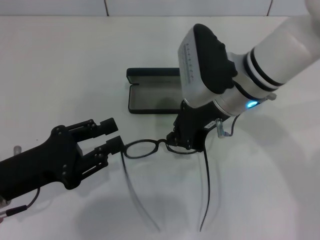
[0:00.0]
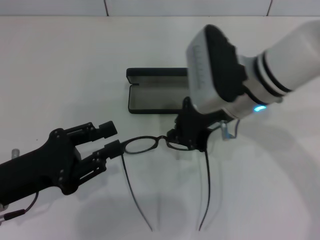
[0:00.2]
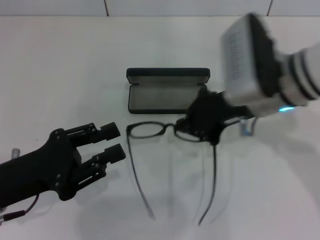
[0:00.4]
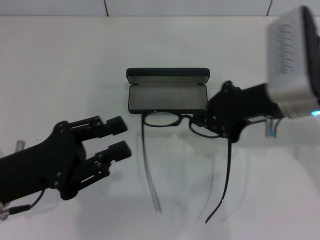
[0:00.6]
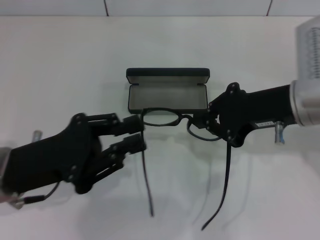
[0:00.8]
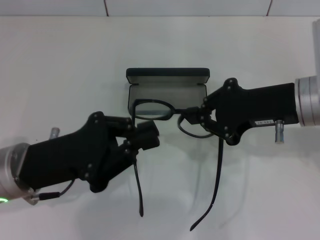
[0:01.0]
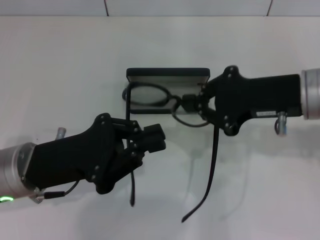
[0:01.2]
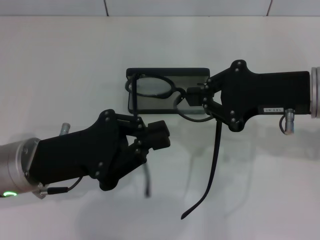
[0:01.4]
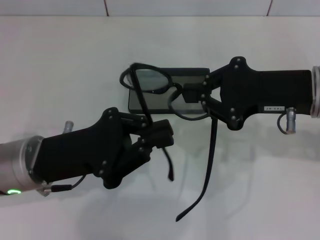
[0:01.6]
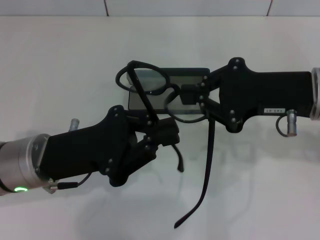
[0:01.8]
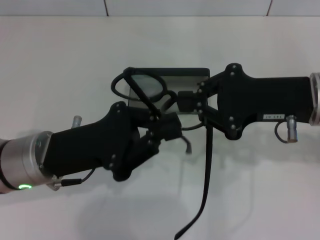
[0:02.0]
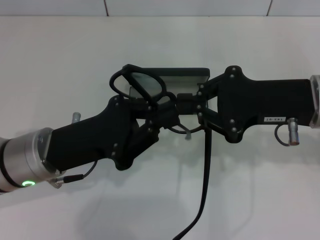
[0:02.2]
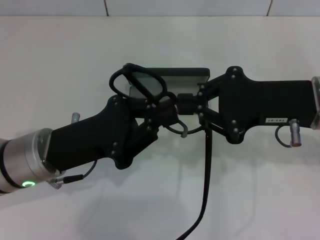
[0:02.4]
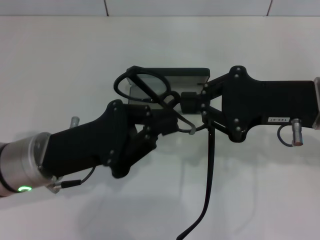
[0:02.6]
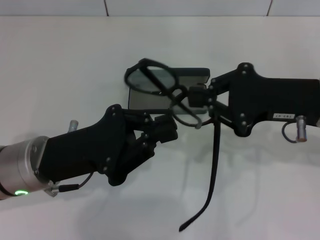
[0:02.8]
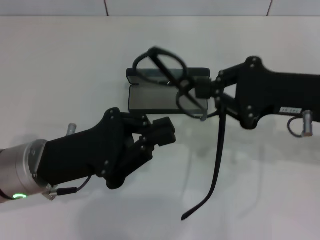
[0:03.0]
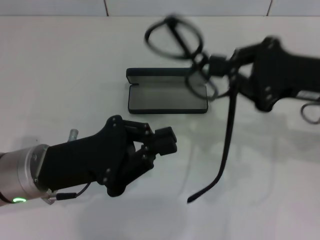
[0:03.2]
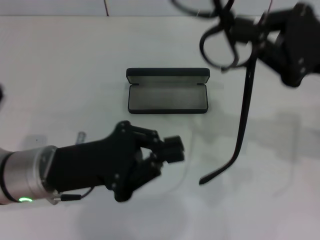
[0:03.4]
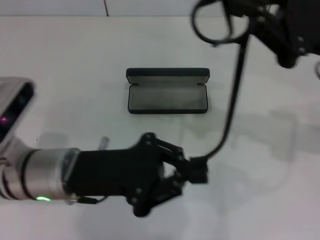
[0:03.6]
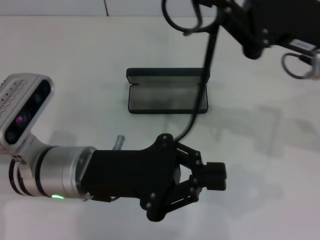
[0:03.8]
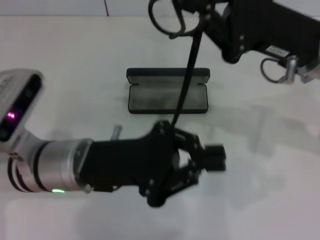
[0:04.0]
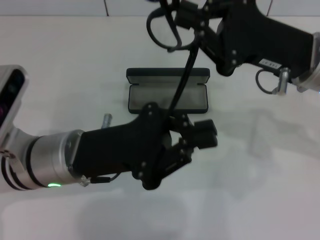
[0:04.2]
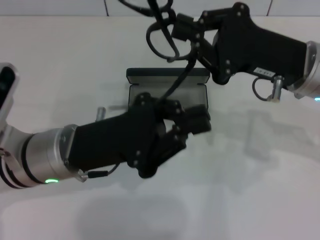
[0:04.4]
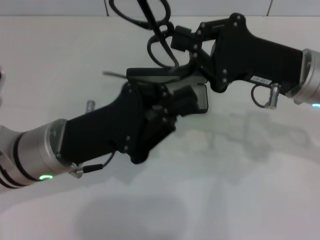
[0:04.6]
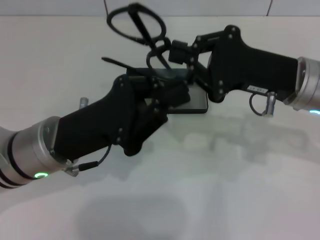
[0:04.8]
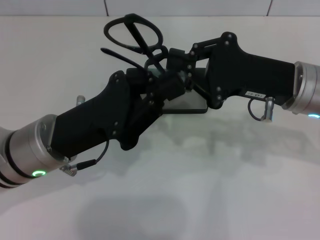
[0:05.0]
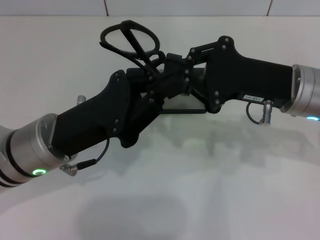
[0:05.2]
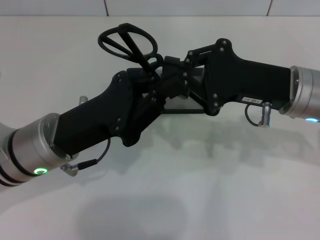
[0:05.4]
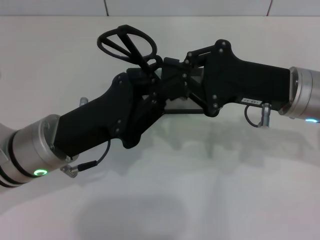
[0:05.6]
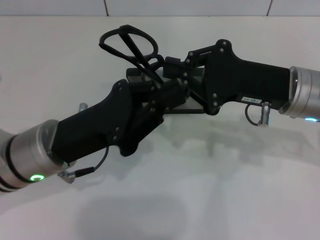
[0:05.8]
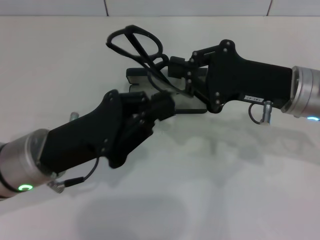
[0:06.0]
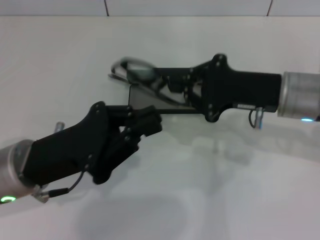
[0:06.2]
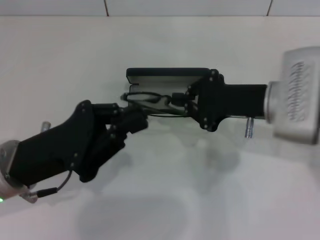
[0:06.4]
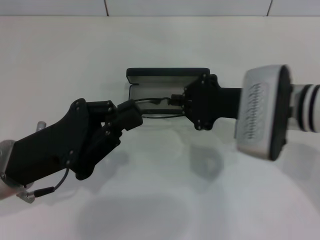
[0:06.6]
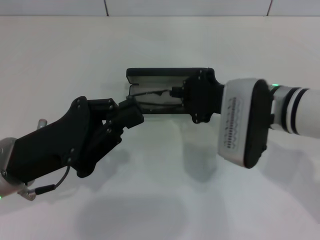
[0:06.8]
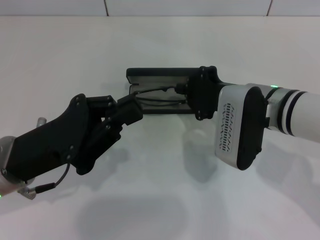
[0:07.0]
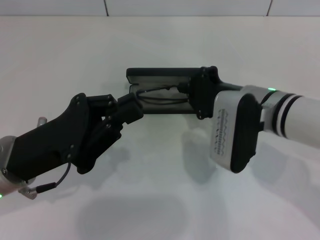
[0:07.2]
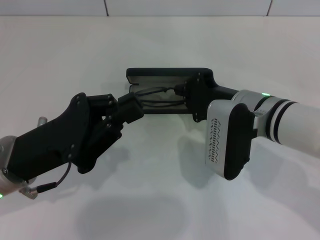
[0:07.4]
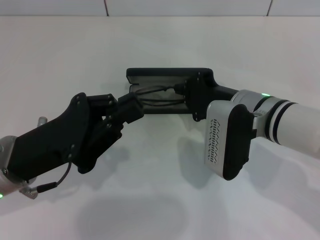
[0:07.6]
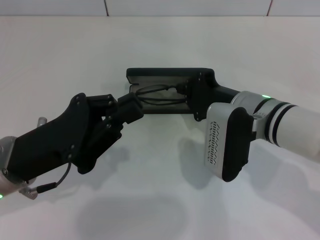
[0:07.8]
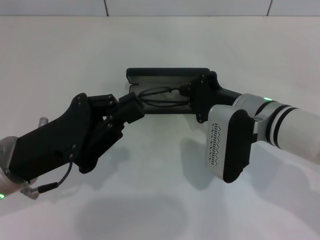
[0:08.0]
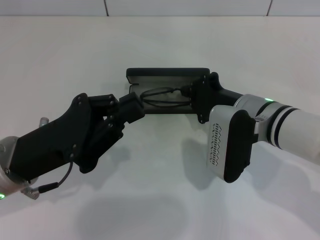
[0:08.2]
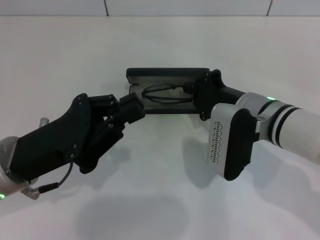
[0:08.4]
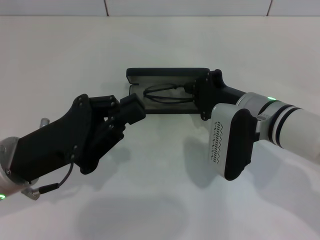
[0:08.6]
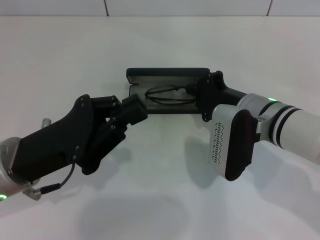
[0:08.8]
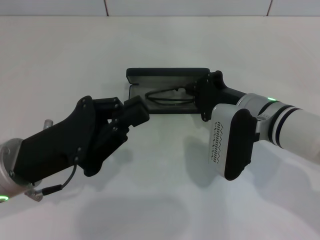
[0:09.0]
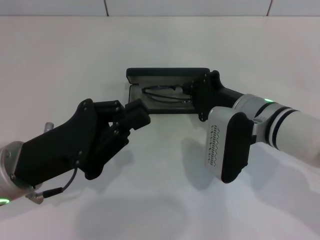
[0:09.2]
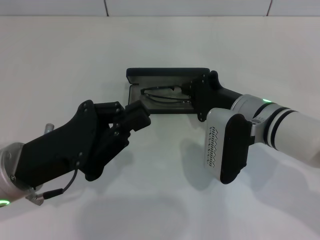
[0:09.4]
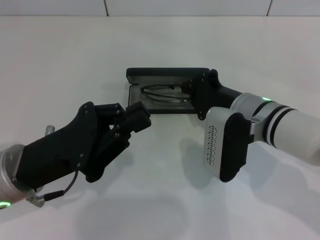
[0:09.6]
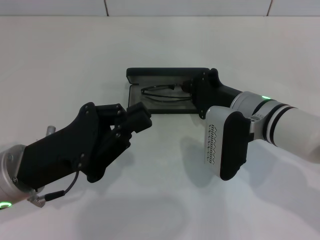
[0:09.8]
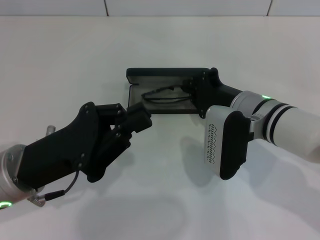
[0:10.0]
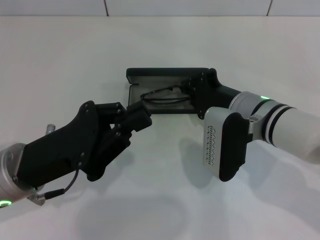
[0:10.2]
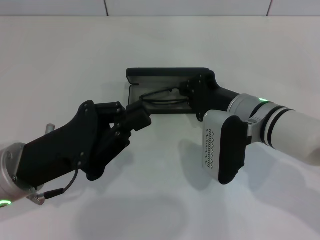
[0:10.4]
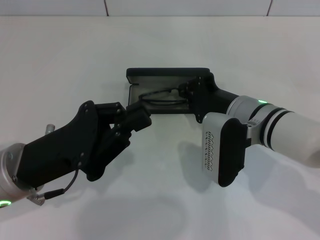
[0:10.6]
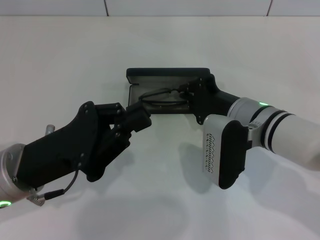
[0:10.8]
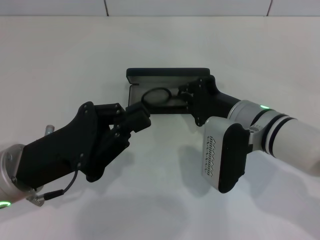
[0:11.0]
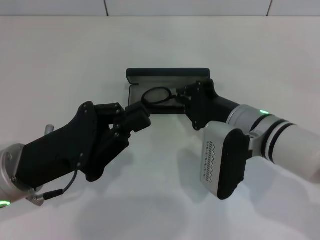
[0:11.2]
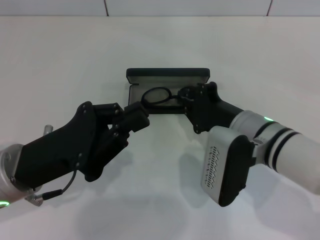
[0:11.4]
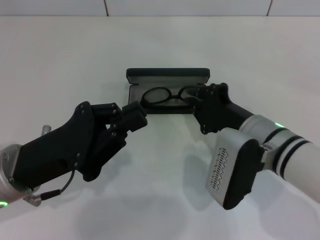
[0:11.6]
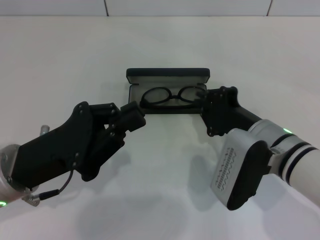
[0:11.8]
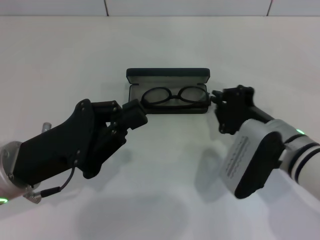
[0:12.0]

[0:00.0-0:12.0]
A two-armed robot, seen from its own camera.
Step, 0:00.0 to 0:05.6: Fold the frame with your left hand.
Step, 0:05.8 to 0:11.0: Put the glasses into the case with your right hand.
0:00.0 to 0:01.6: The left gripper heads to the right, covering roughly 5 cm, and closes. Meanwhile the right gripper shifts some 15 cm to the right and backward.
0:01.6 to 0:03.0: There are only small adjustments of the grippers.
0:06.0 to 0:07.6: The right gripper travels to the left by approximately 5 cm.
0:07.6 to 0:09.0: There are only small adjustments of the grippers.
0:09.0 to 0:10.4: Both grippers stay put.
0:10.4 to 0:12.0: The right gripper moves some 5 cm.

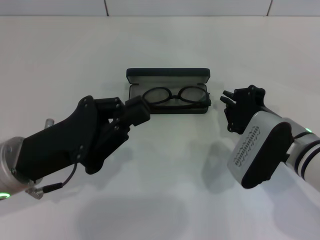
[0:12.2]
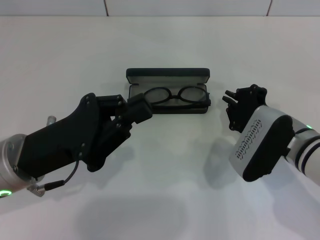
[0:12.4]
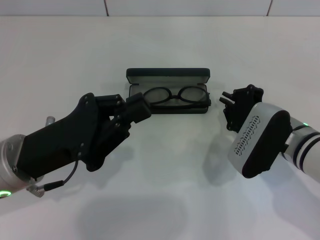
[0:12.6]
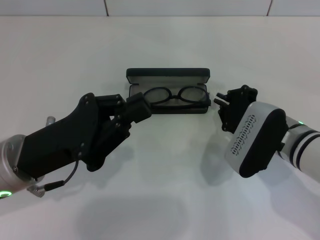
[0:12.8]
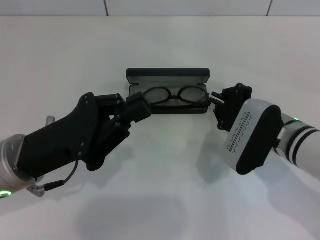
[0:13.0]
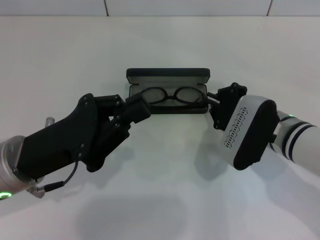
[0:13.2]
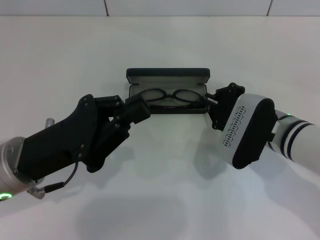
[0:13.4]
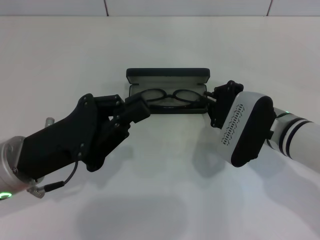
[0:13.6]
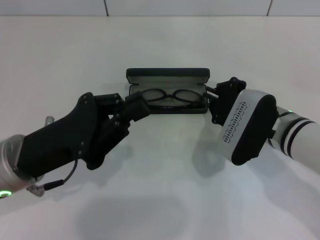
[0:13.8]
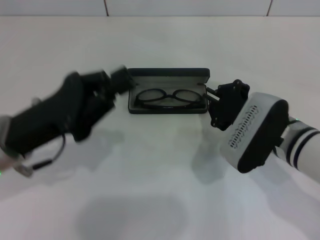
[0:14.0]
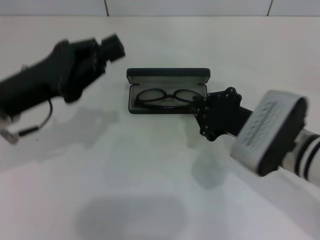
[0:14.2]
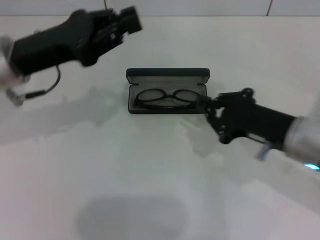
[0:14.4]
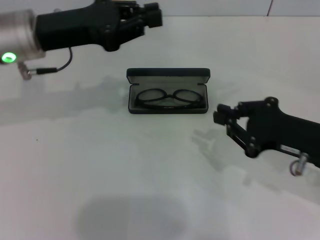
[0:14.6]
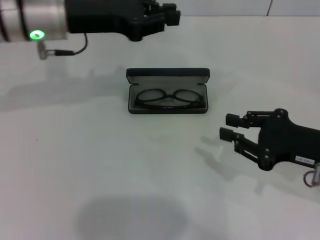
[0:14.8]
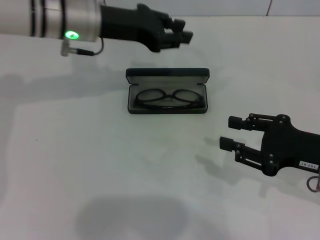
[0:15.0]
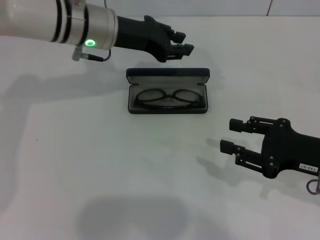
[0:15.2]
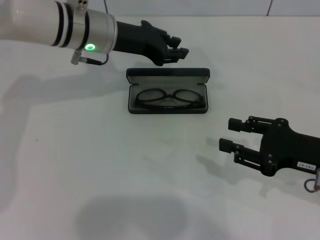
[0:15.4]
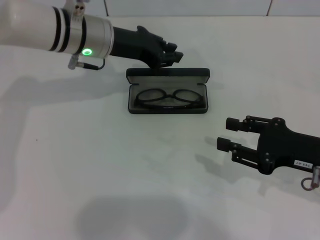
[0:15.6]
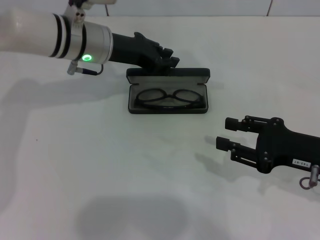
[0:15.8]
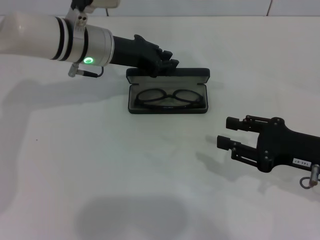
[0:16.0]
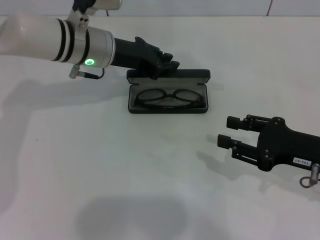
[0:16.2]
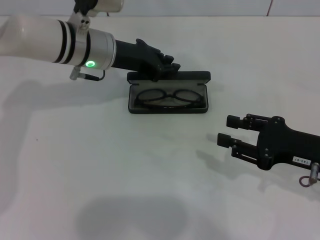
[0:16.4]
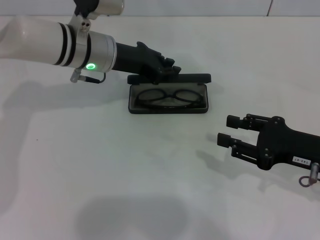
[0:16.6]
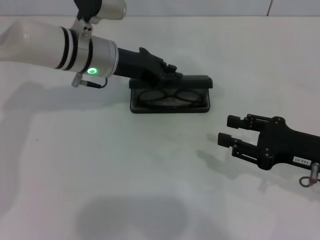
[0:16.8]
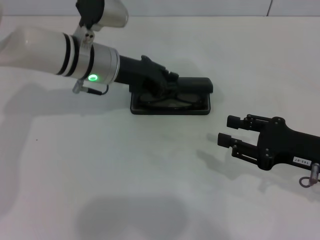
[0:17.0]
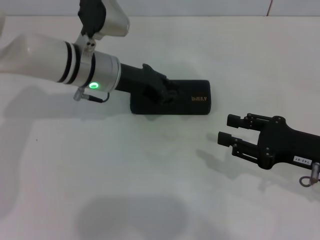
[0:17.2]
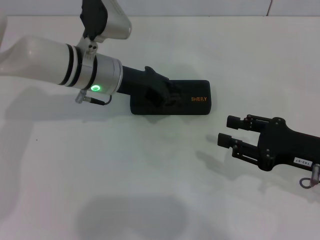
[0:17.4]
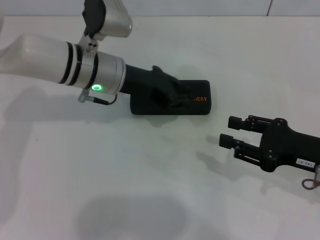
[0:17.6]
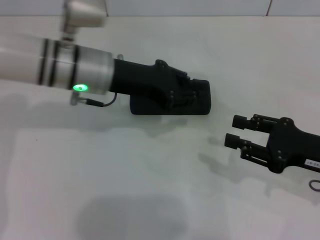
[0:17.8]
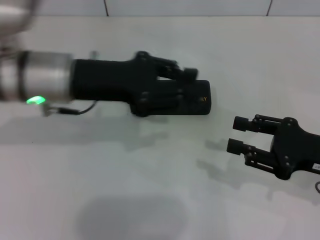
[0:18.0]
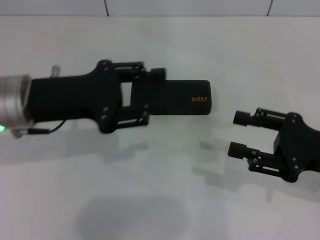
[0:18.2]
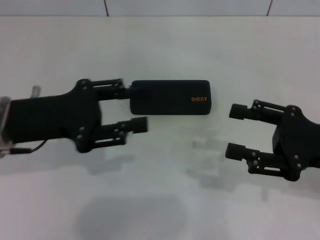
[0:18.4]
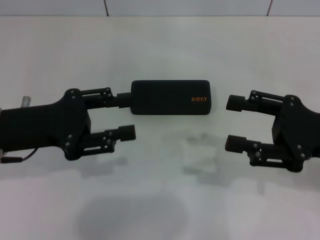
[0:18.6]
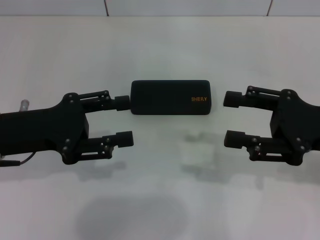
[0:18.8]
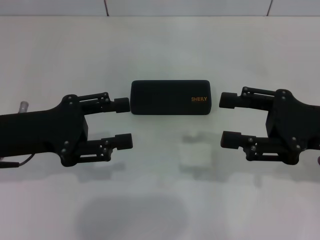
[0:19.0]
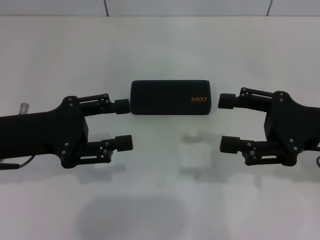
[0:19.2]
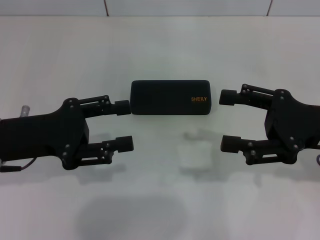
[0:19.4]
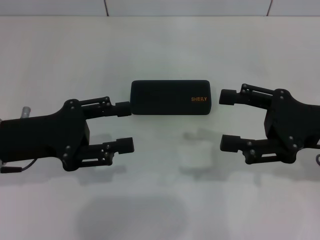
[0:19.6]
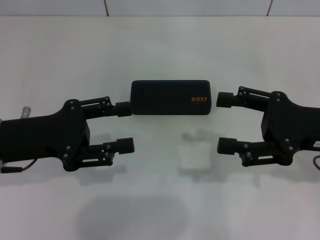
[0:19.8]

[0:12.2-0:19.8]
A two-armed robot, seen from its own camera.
Step, 0:12.2 to 0:17.2: Close the glasses case with your left hand.
0:12.2 to 0:13.8: There are only small adjustments of the grippers.
0:13.8 to 0:15.2: The right gripper moves to the right and backward, approximately 15 cm, and opens up. Meanwhile the left gripper heads forward, covering roughly 20 cm.
0:15.2 to 0:16.8: The grippers stay close to where they were, moving slightly.
0:16.8 to 0:18.2: The left gripper travels backward and to the left by roughly 15 cm.
0:18.2 to 0:19.8: The right gripper opens. Meanwhile the left gripper ends up some 5 cm from where it was, and opens.

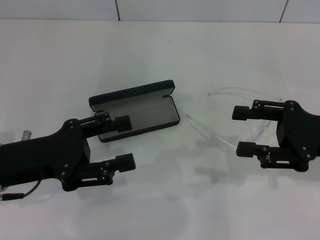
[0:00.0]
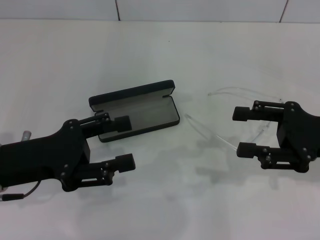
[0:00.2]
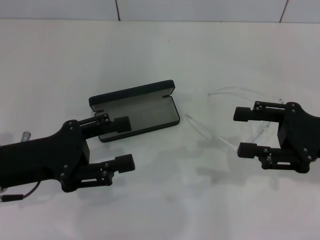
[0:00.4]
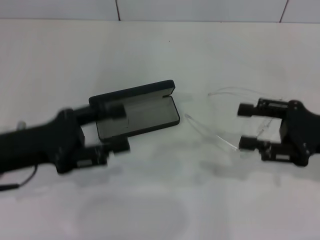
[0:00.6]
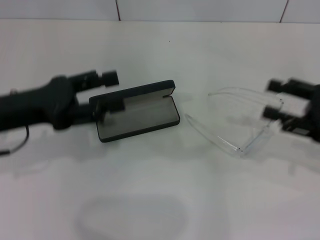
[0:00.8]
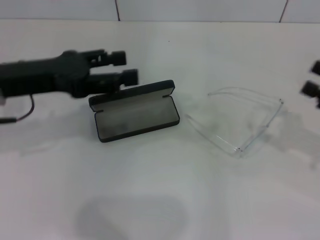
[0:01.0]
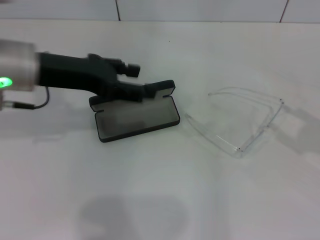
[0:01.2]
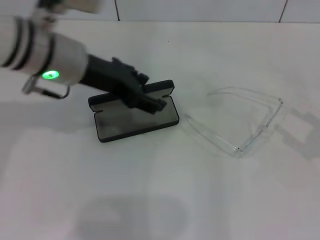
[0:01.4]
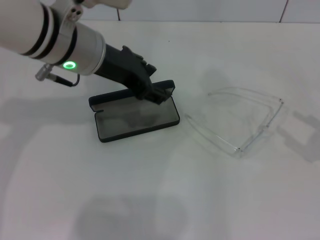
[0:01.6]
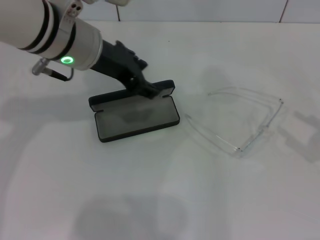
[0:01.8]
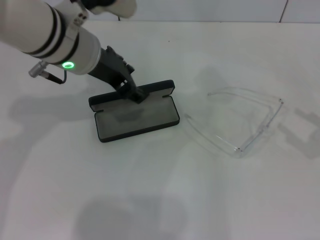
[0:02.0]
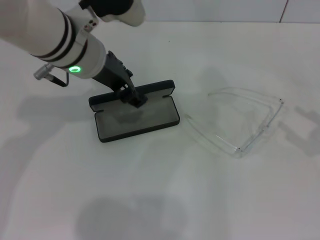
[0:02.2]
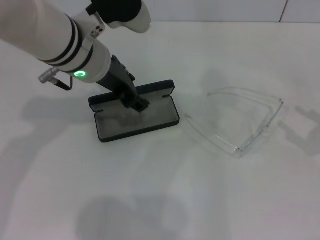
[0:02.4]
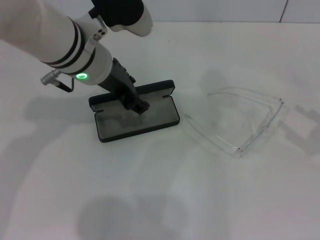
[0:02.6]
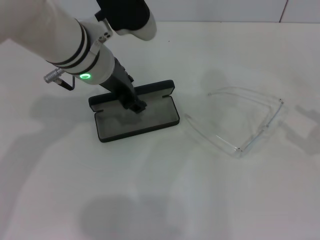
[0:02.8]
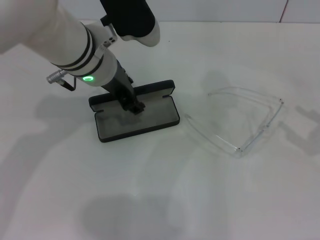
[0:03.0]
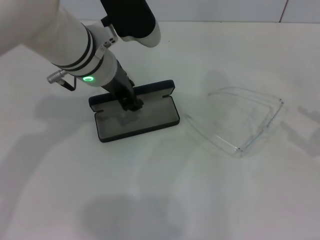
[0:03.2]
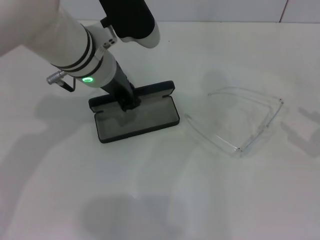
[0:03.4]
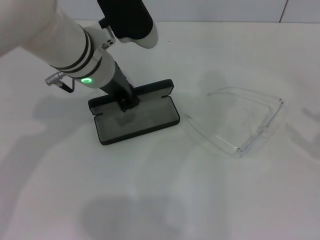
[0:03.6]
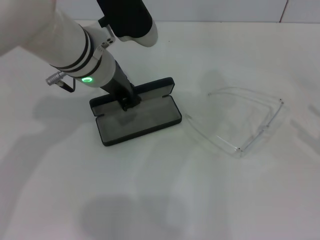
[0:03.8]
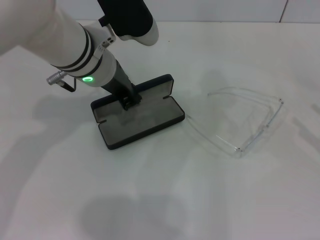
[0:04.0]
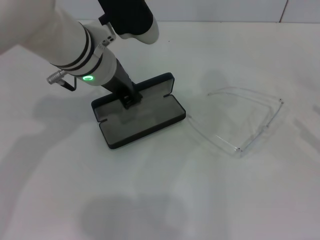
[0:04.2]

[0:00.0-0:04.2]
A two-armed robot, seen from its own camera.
Step, 0:00.0 to 0:03.8: Grab the glasses case with your left hand.
0:00.0 to 0:01.4: The right gripper moves to the right and backward, roughly 10 cm; the left gripper goes some 20 cm forward, to the right and upward.
0:01.4 to 0:02.8: The left gripper ends up approximately 5 cm from where it was.
0:02.8 to 0:04.2: The left gripper closes its fingers.
